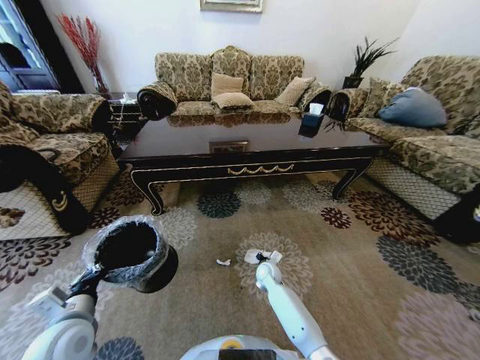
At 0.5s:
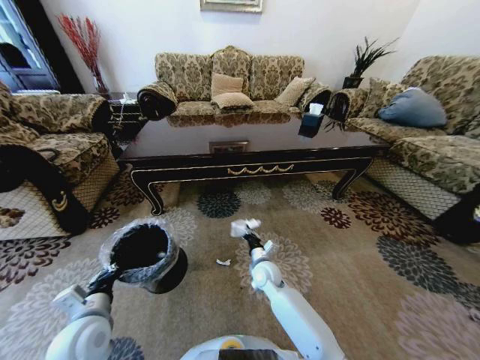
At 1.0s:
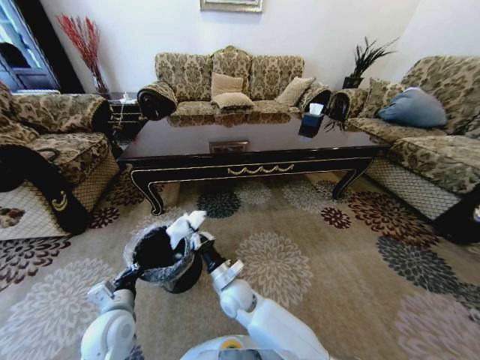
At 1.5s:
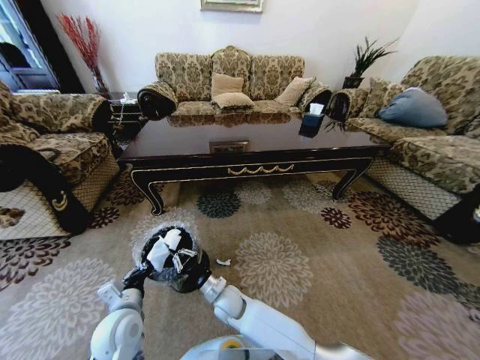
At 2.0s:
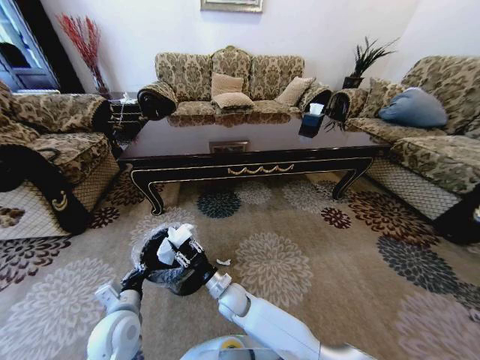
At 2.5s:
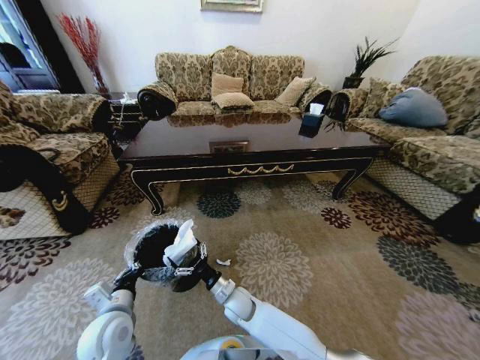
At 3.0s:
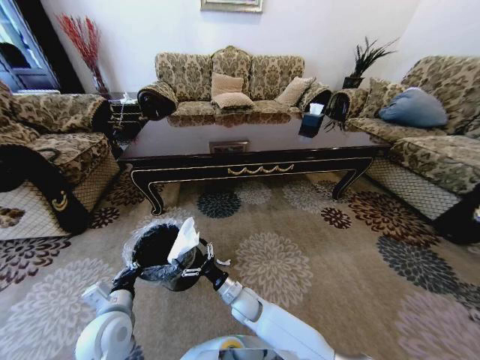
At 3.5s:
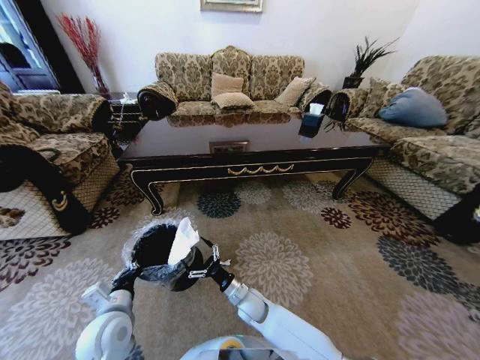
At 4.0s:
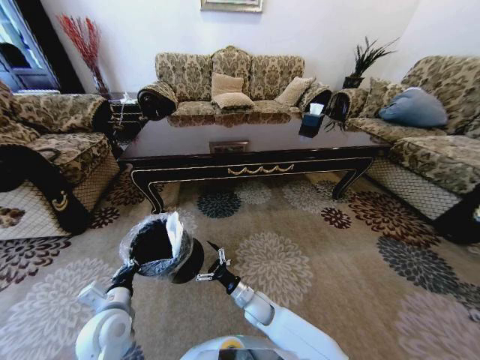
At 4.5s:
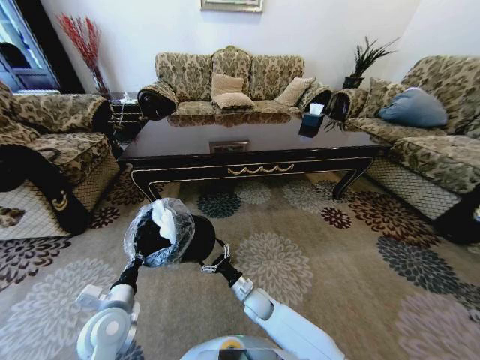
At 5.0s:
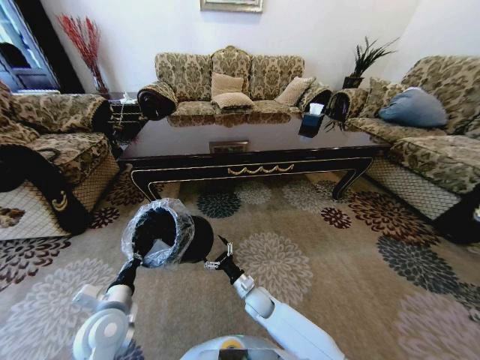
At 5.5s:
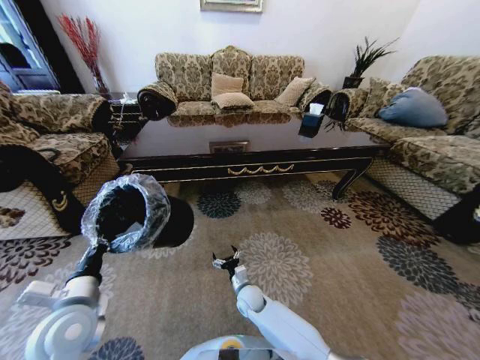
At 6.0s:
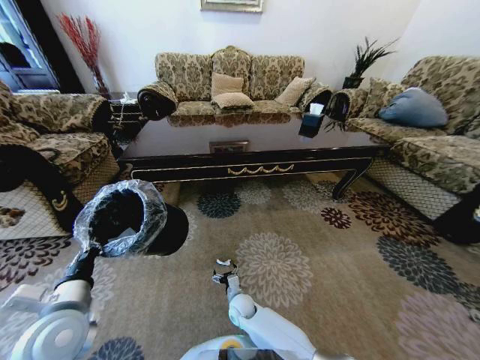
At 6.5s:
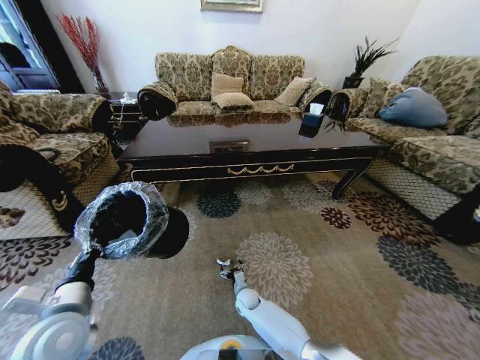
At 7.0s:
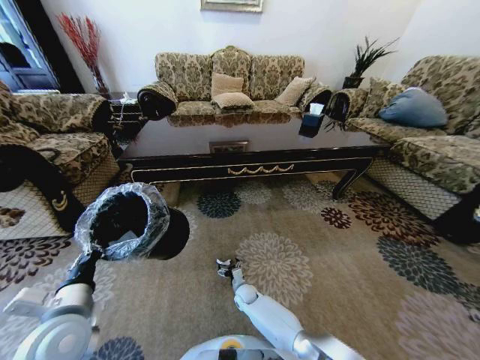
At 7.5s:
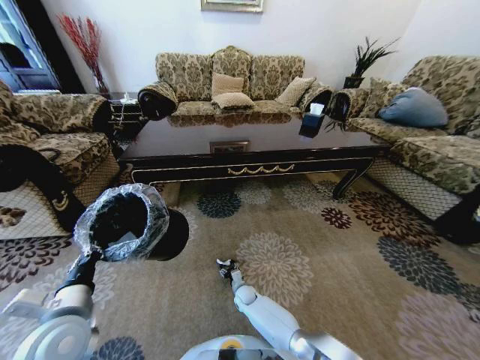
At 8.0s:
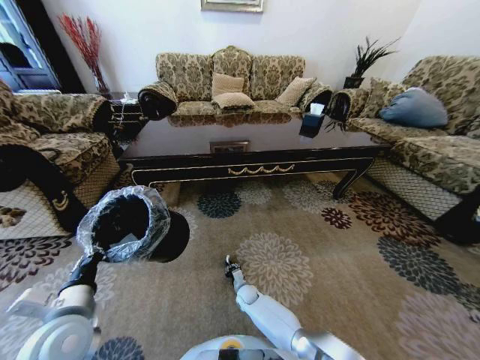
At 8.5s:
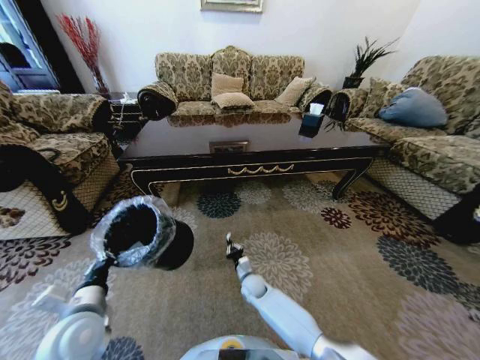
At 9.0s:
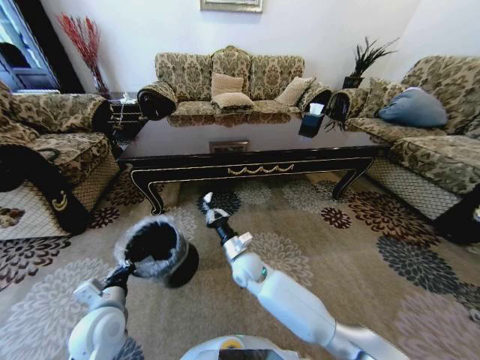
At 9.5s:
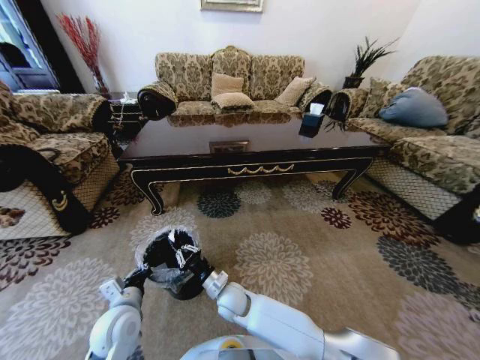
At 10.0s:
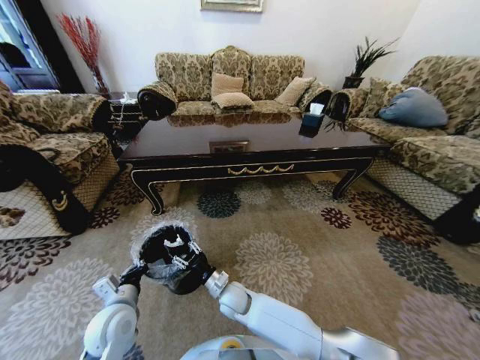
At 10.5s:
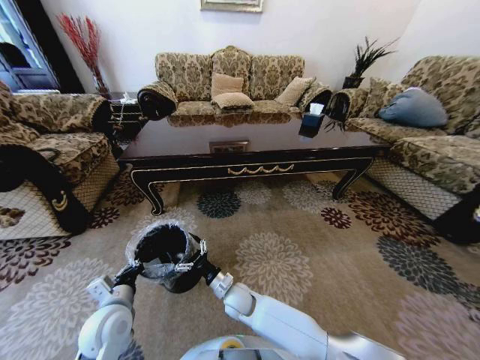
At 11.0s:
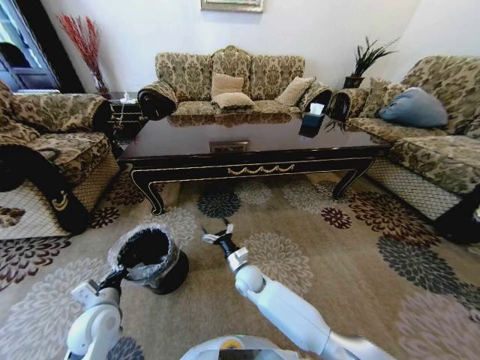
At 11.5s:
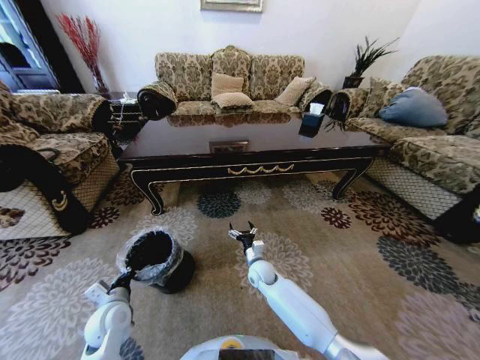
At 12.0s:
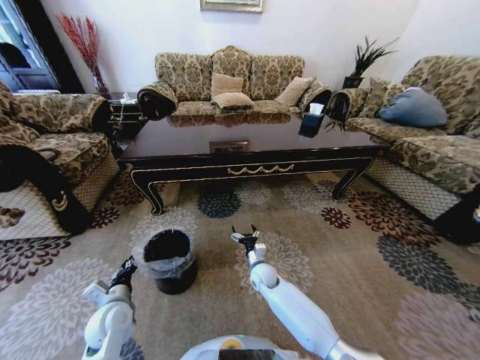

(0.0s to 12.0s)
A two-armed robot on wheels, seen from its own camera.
Task of the whole recording: Move to the front of the table and pick up the trash from the floor, then place it into the trash bin.
0.0s - 2.0s: The left gripper moves to the right and downward, some 10 cm; the right gripper heads to the left and backward, covering some 20 cm.
2.0s - 4.0s: The right gripper is displaced to the right by about 10 cm, and opens its fingers.
4.0s - 6.0s: The right gripper moves downward and to the left, some 5 cm; the left gripper shifts some 10 cm upward.
6.0s - 8.0s: The right gripper travels downward and forward by some 10 cm, and closes its fingers.
8.0s - 10.0s: The right gripper goes approximately 20 cm upward and to the left, and opens its fingers; the left gripper shifts about 5 cm downward.
10.0s - 12.0s: The right gripper travels to the right and forward by roughly 15 cm, and opens up. The left gripper ends up approximately 5 cm from where it was.

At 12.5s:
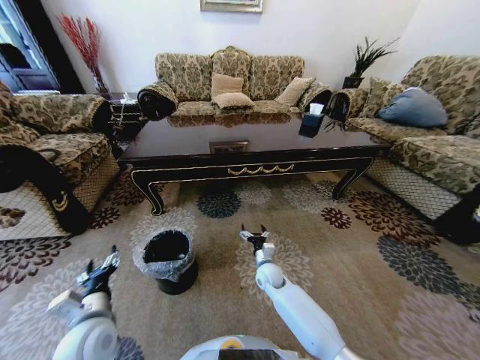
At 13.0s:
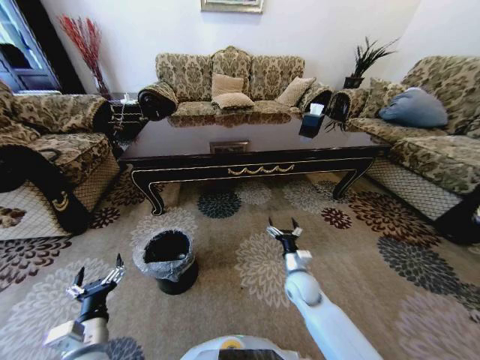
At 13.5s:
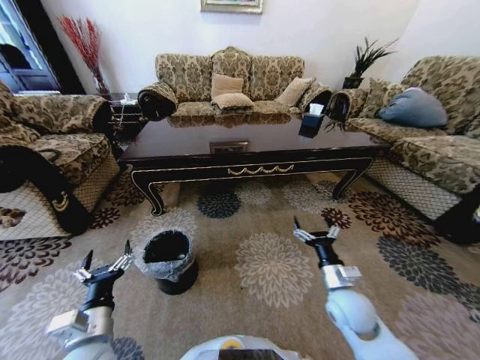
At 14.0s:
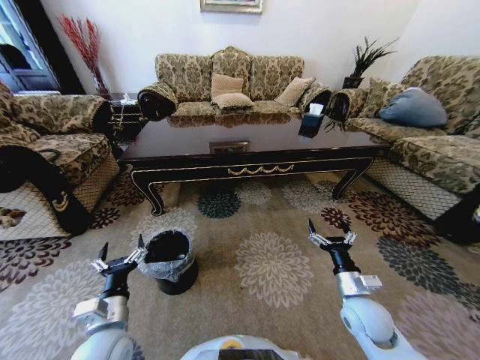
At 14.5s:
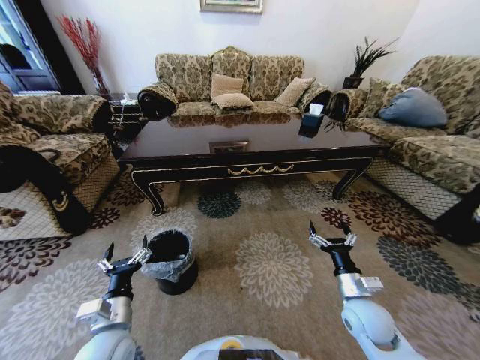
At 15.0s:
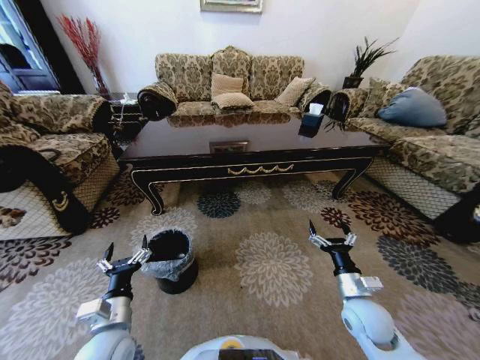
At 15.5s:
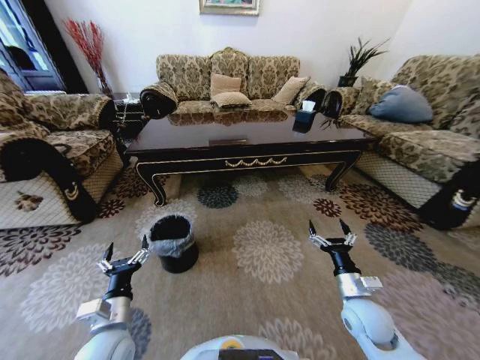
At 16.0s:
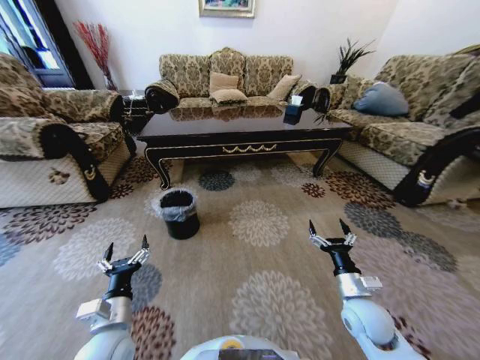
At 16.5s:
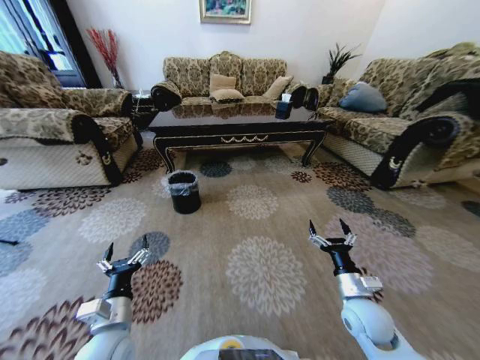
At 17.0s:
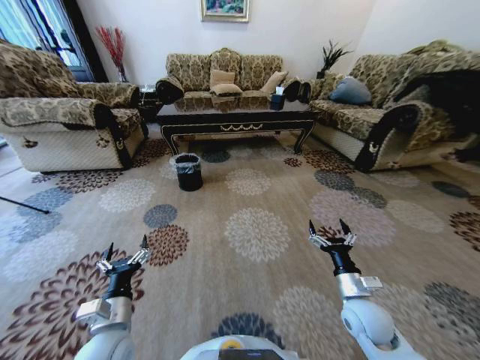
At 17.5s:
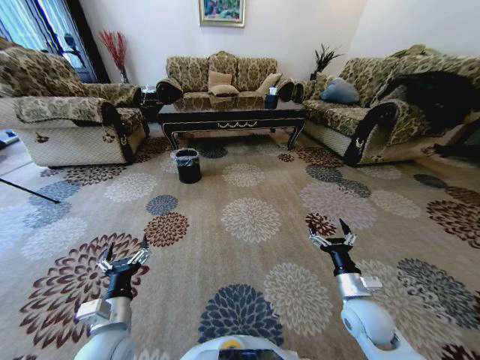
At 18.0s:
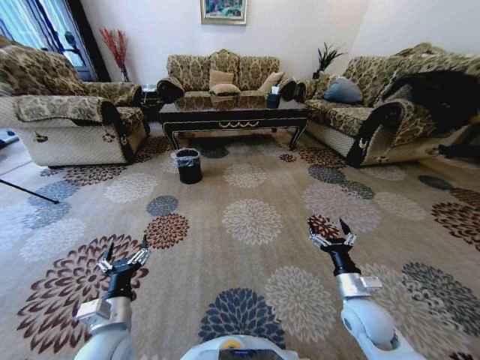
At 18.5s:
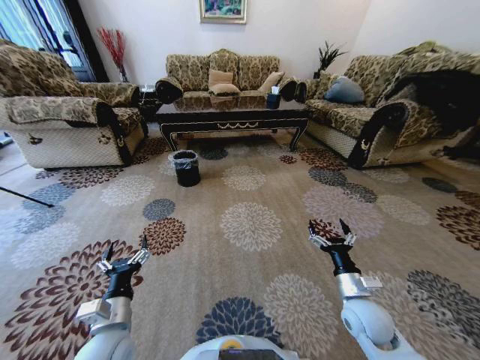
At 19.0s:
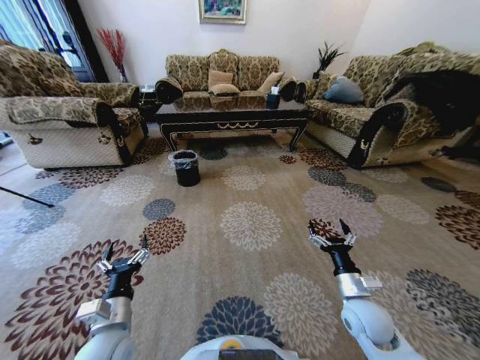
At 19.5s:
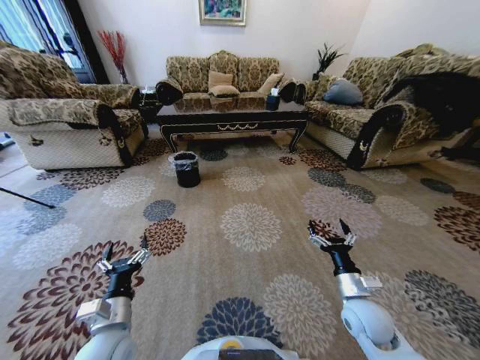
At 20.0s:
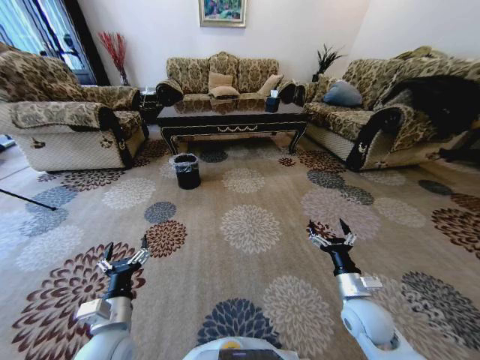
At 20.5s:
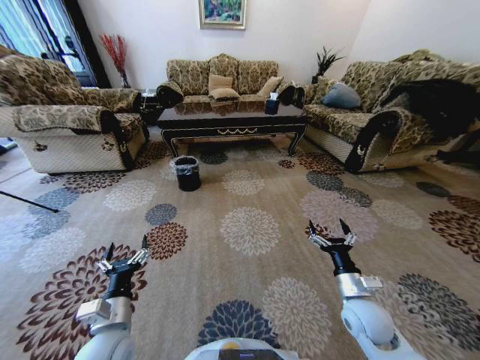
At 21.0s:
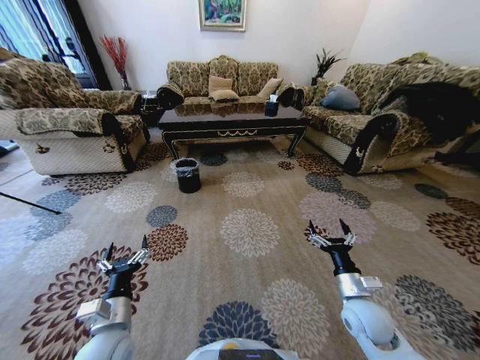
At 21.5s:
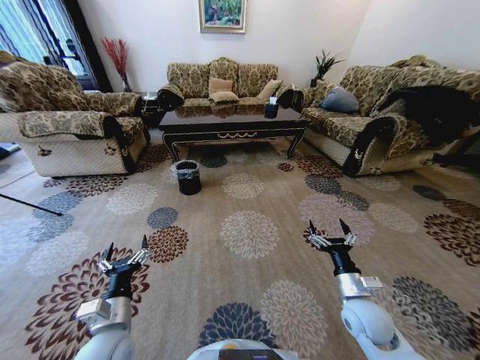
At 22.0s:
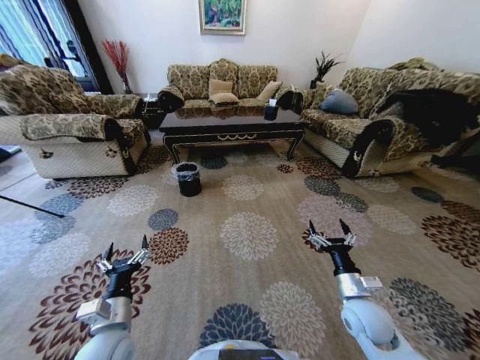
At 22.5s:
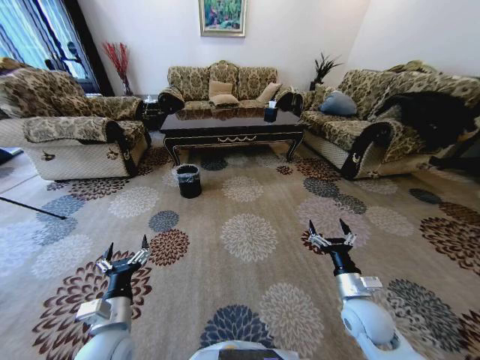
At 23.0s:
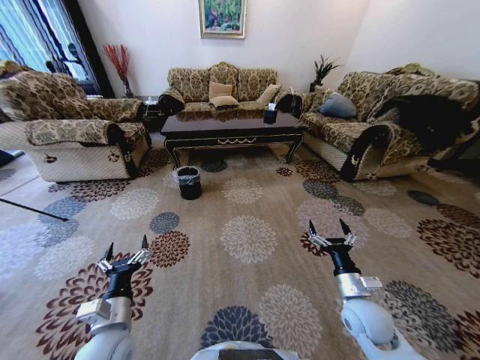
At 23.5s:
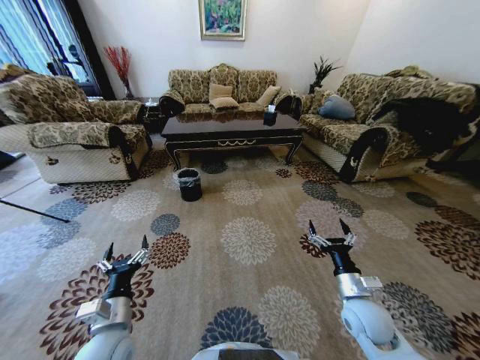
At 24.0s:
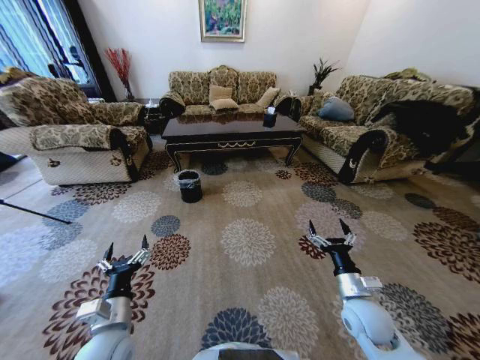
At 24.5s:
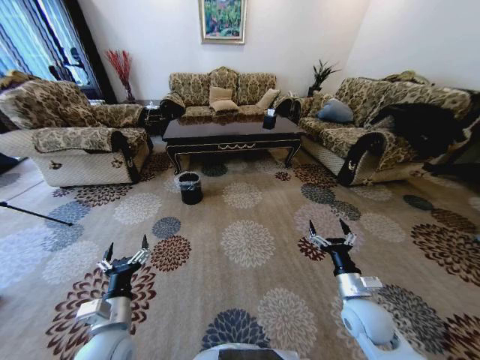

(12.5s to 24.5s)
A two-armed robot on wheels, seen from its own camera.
Task of the whole recording: Move to the front of the table and pick up the trash from the floor, then place it into the trash bin.
12.5s - 14.5s: The right gripper moves to the right, backward and upward, about 25 cm.

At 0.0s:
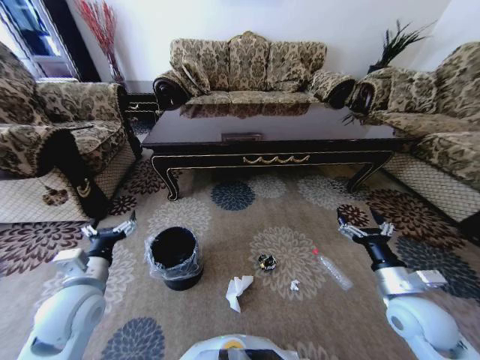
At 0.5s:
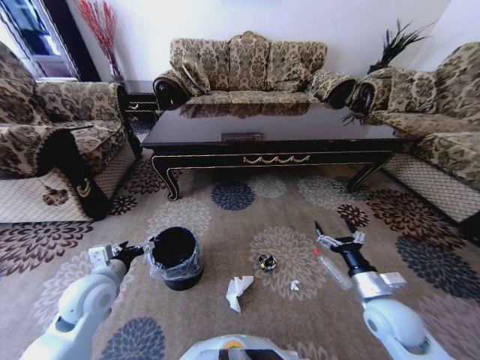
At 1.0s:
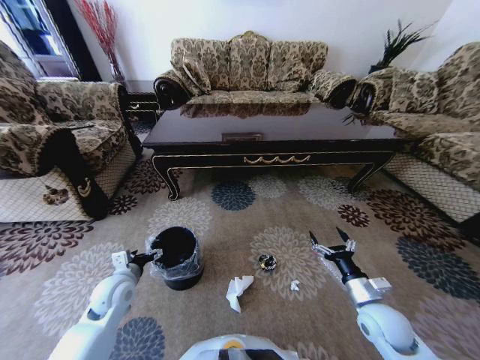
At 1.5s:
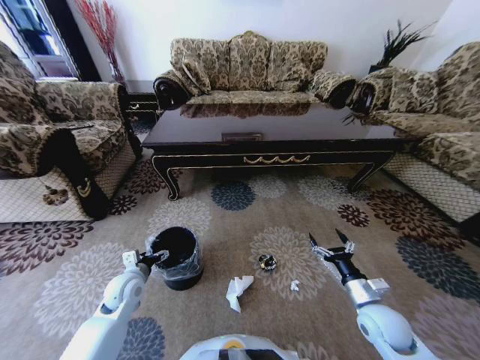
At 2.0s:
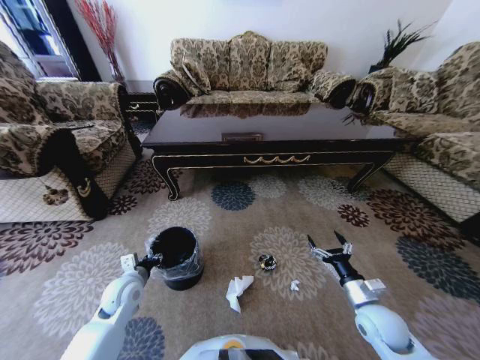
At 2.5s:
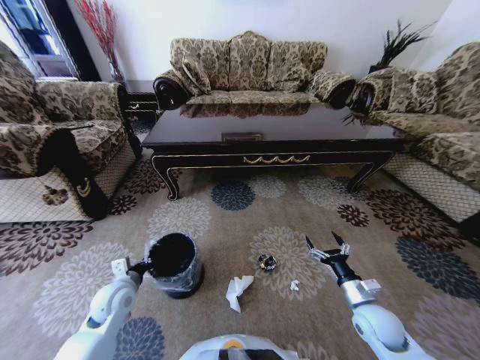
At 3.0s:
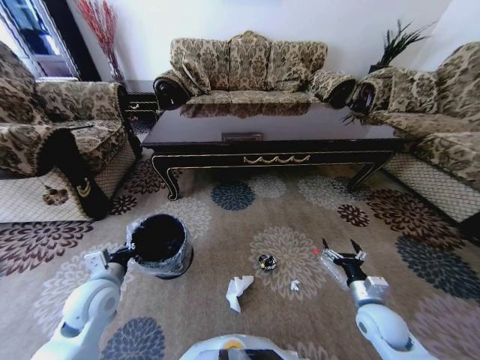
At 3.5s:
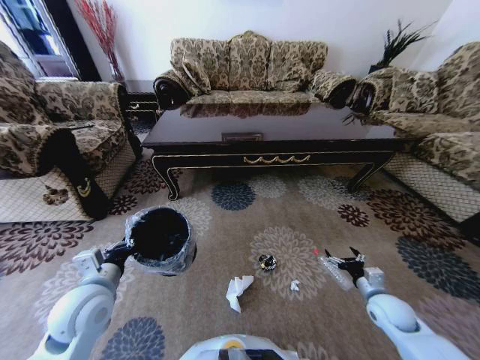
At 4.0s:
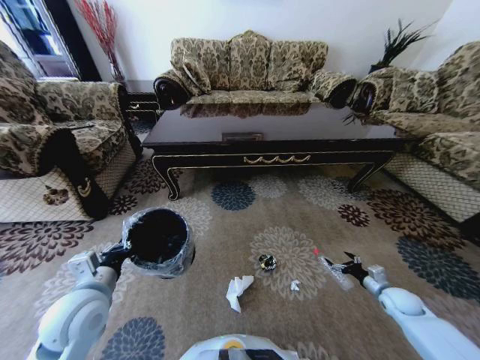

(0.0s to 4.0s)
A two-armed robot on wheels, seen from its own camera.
Task of the whole recording: Move to the front of the table and pick up the trash from the floor, then place it into the trash bin.
0.0s - 2.0s: The right gripper is displaced downward by approximately 10 cm; the left gripper shifts about 15 cm downward and forward, and closes up.
2.0s - 4.0s: The left gripper travels upward and backward by some 15 cm, and closes its fingers. The right gripper moves to the right and downward, about 20 cm.
